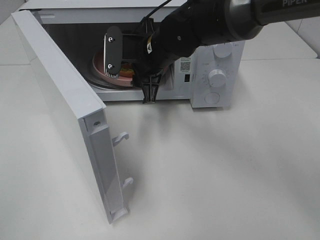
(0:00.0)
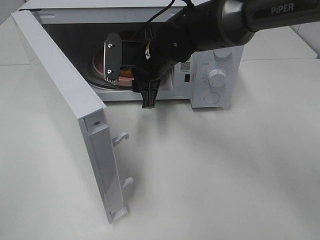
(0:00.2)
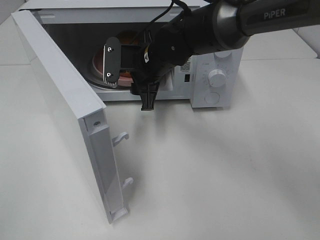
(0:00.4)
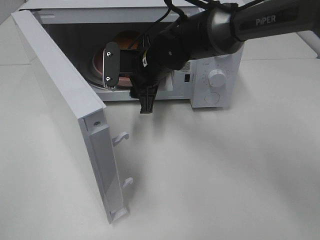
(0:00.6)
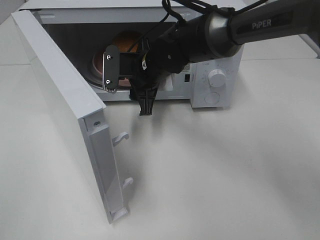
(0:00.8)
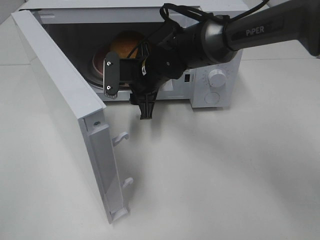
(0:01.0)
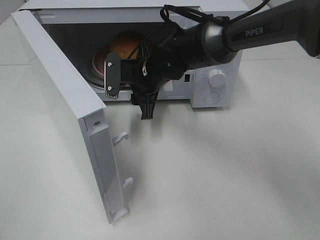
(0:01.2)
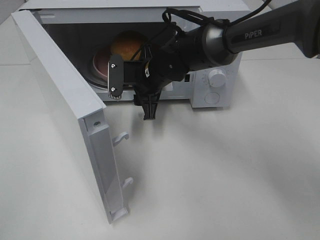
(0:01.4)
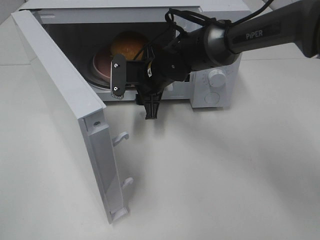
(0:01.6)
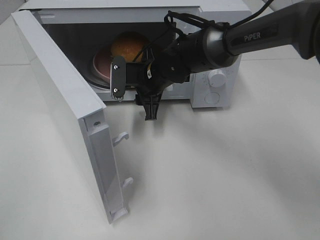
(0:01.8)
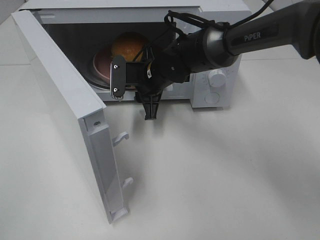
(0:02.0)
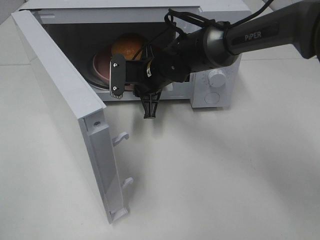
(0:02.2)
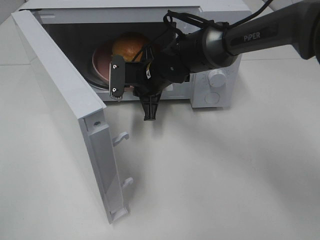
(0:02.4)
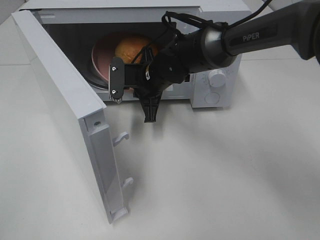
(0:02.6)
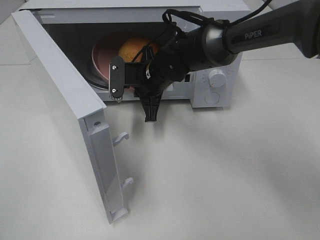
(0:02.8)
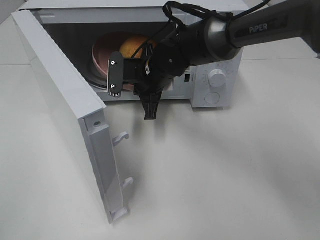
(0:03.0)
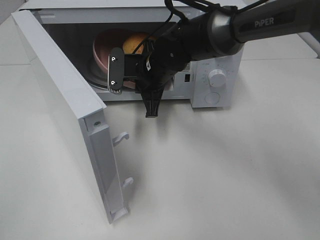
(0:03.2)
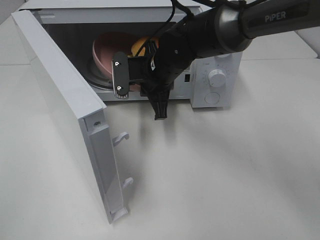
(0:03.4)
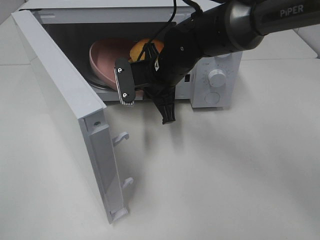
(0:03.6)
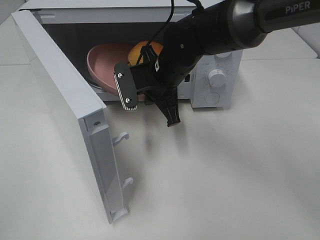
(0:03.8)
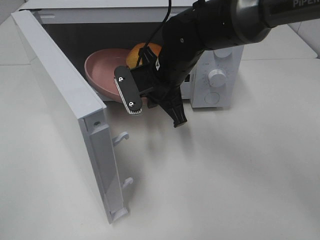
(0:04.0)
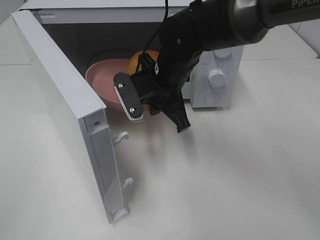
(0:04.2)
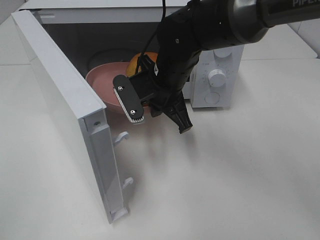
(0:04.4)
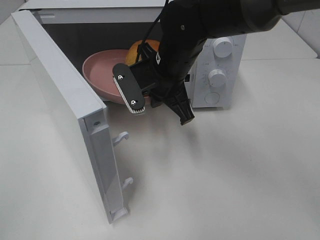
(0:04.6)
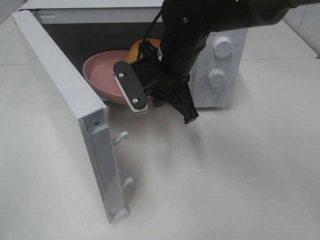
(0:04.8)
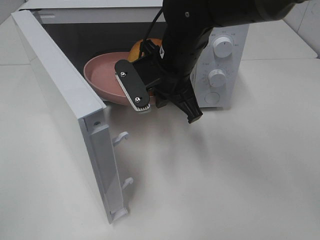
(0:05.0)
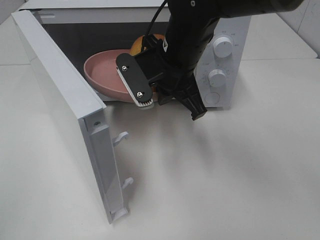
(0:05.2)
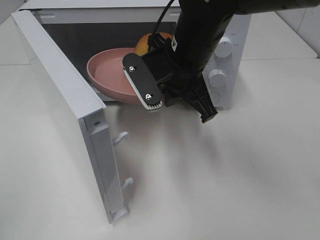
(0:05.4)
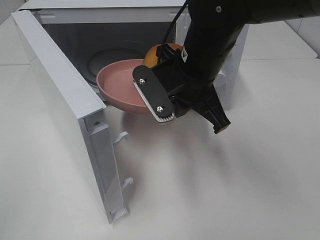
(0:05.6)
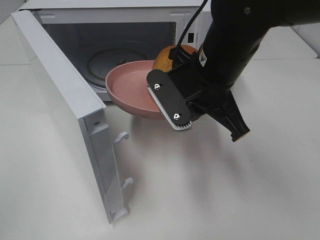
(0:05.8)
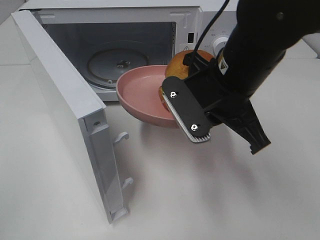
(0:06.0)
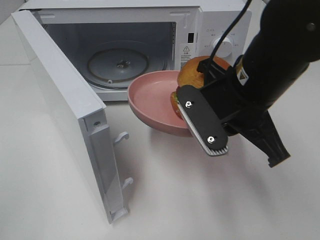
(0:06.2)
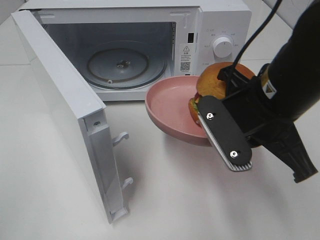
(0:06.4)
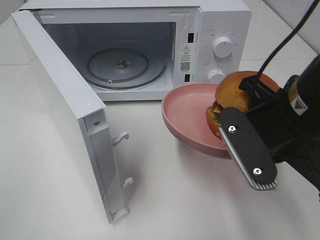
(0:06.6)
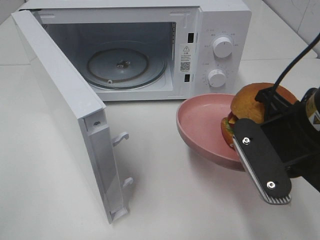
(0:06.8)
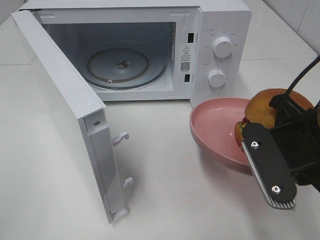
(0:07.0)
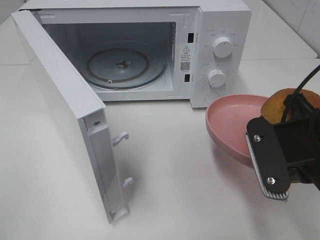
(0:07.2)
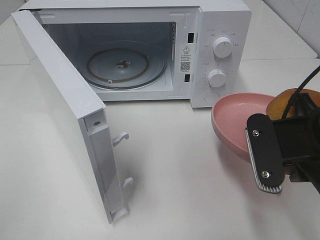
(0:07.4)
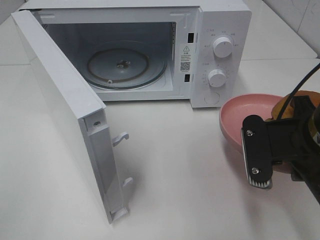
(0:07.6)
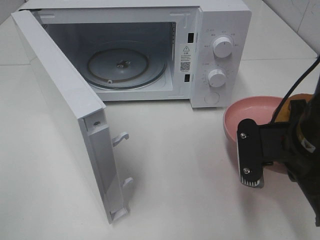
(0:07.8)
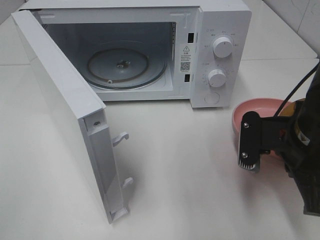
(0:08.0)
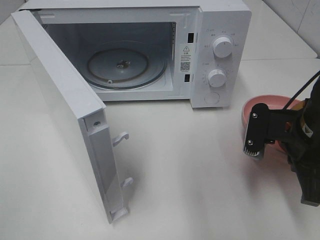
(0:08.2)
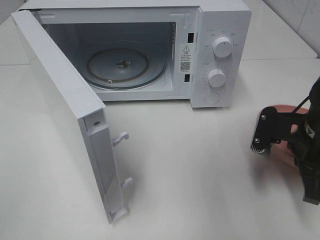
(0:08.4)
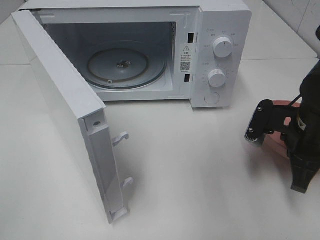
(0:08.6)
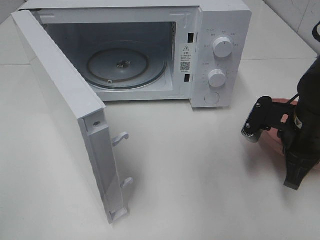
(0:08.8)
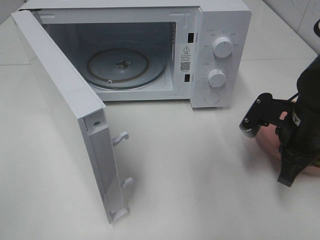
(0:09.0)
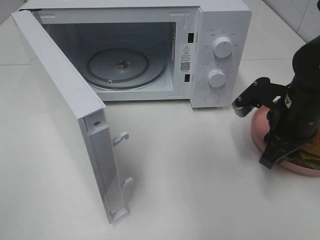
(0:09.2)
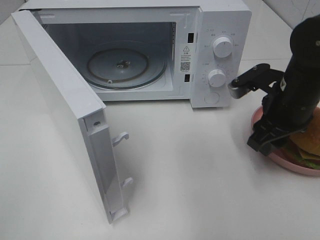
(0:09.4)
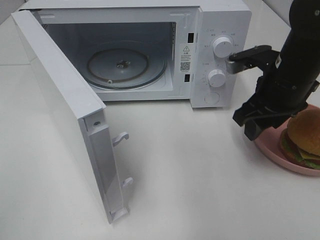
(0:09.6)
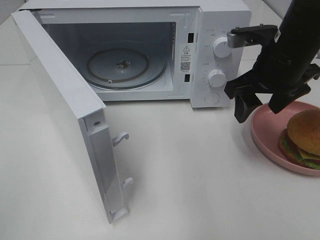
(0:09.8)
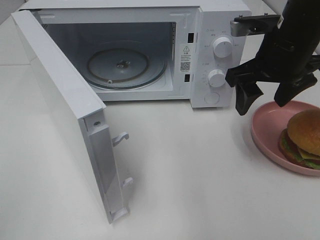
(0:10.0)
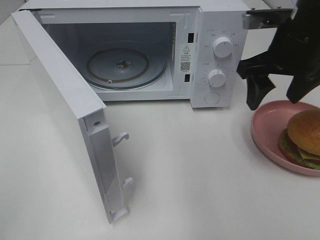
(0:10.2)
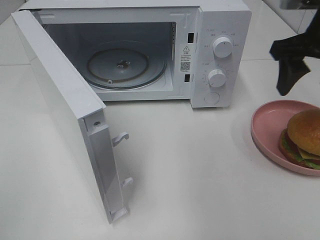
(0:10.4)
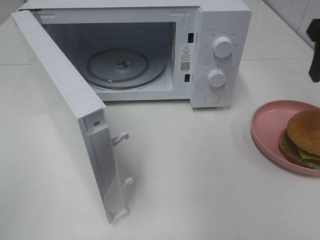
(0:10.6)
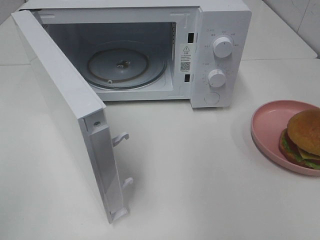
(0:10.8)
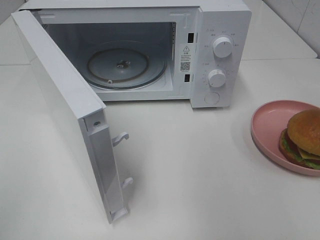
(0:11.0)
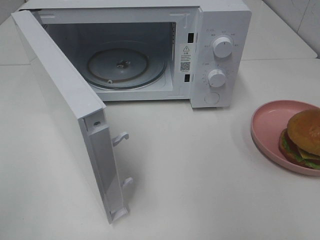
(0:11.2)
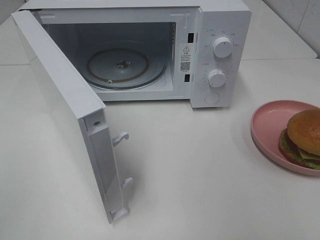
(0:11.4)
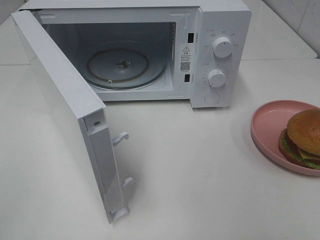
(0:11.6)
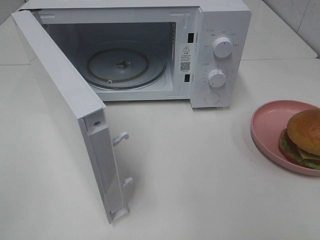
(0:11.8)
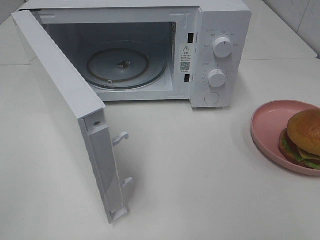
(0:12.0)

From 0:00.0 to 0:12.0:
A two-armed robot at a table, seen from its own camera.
Task of the whole recording: Heat the burger.
Step, from 0:00.0 to 0:02.2: Right hand: grab the plate with the hamburger.
Step, from 0:02.4 to 0:09.0: Right hand: place the plate on the table.
From 0:00.0 to 0:01.6: The right gripper shifts some 5 cm downward.
From 0:01.6 to 0:03.0: The right gripper closes up.
From 0:03.0 to 0:04.4: The right gripper heads backward, covering some 5 cm.
From 0:04.4 to 0:06.0: The right gripper goes approximately 15 cm backward, to the right and upward.
From 0:06.0 to 0:07.6: The right gripper moves to the right and backward, some 10 cm.
From 0:07.6 to 0:09.0: The right gripper moves forward and downward, roughly 10 cm.
From 0:09.0 to 0:10.4: The right gripper heads upward, covering some 15 cm, and opens its fingers.
From 0:10.4 to 0:12.0: The right gripper moves backward, roughly 30 cm.

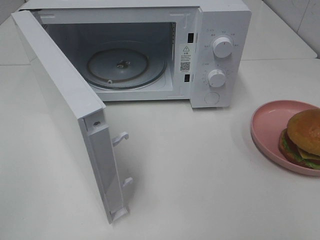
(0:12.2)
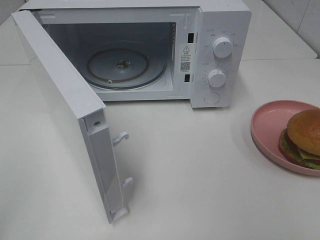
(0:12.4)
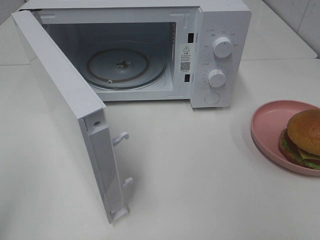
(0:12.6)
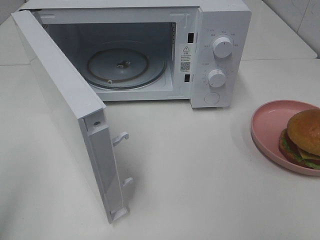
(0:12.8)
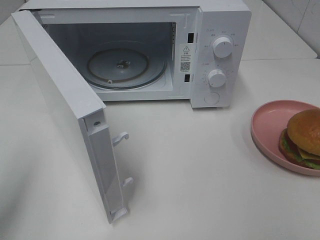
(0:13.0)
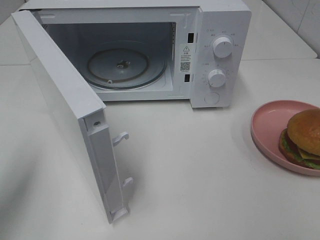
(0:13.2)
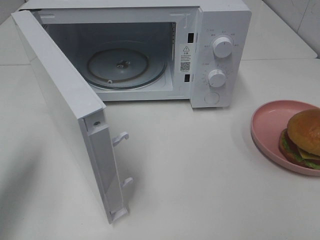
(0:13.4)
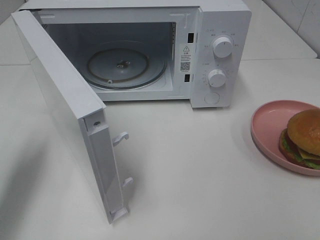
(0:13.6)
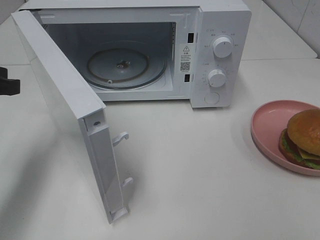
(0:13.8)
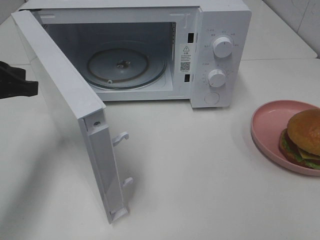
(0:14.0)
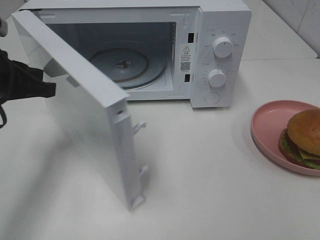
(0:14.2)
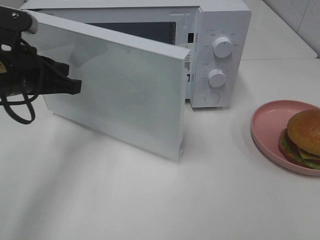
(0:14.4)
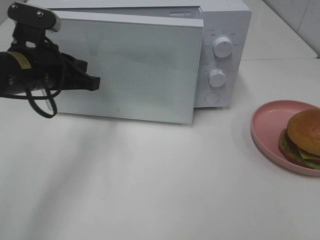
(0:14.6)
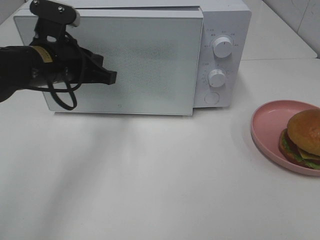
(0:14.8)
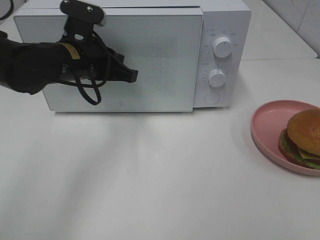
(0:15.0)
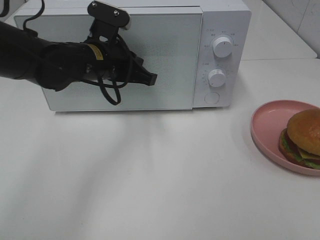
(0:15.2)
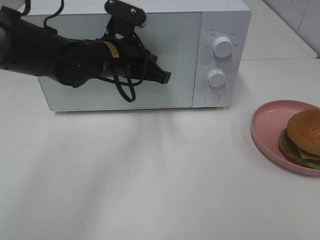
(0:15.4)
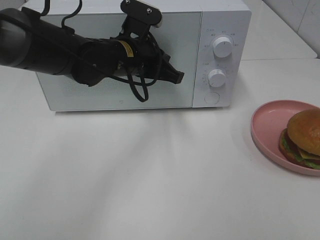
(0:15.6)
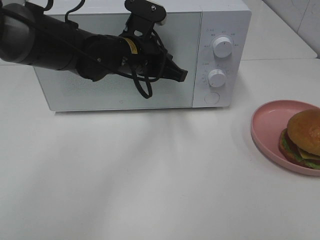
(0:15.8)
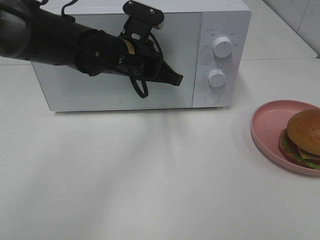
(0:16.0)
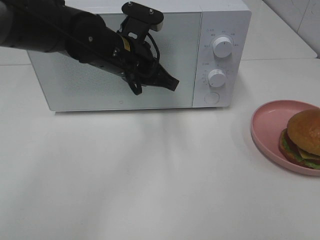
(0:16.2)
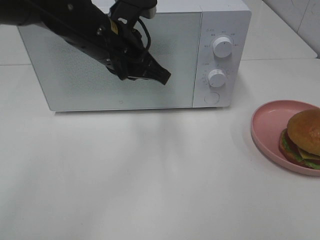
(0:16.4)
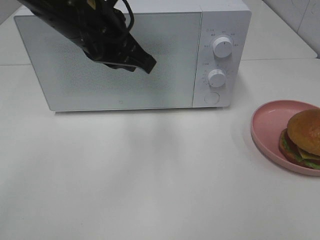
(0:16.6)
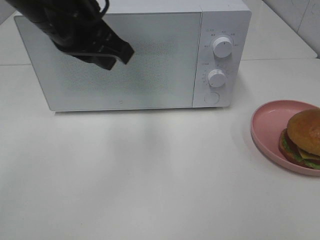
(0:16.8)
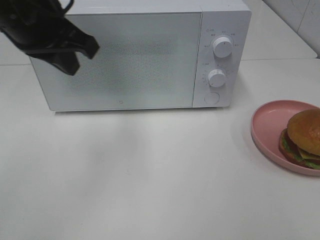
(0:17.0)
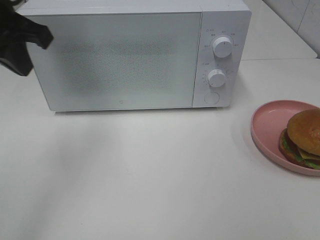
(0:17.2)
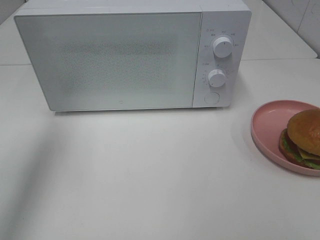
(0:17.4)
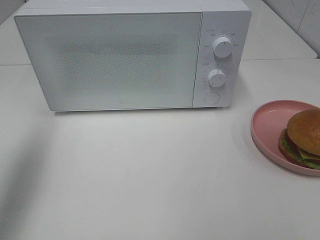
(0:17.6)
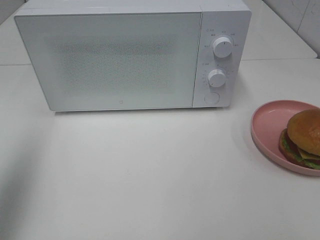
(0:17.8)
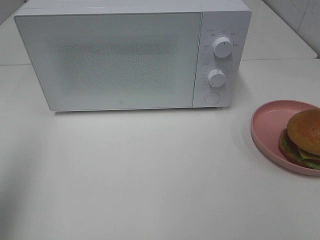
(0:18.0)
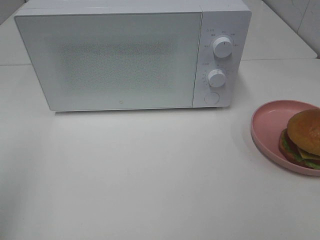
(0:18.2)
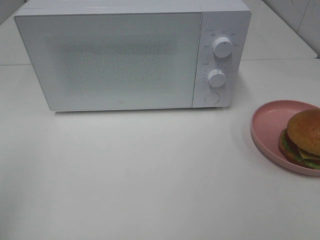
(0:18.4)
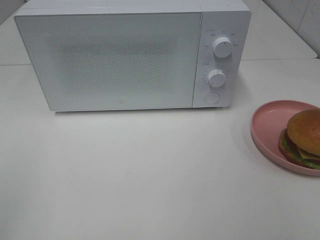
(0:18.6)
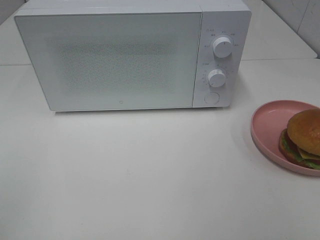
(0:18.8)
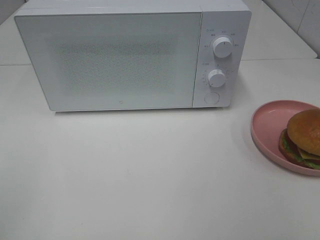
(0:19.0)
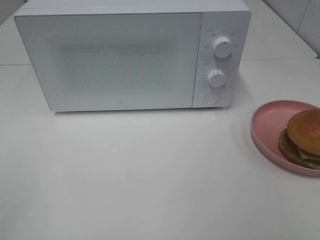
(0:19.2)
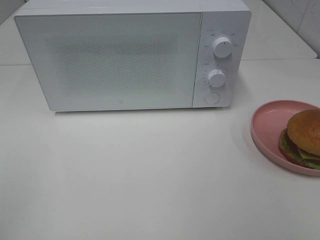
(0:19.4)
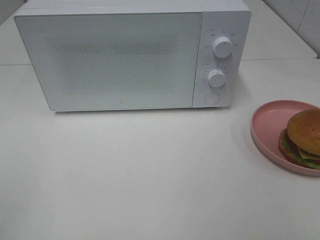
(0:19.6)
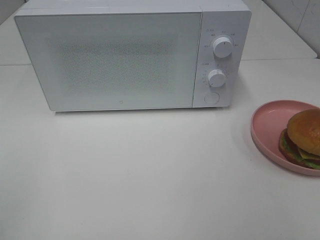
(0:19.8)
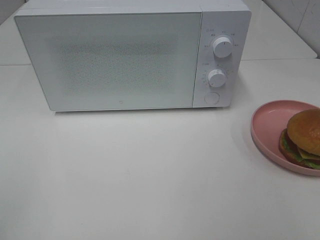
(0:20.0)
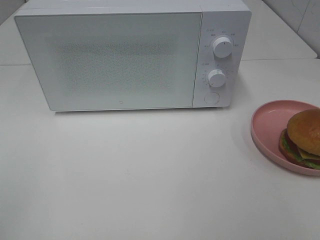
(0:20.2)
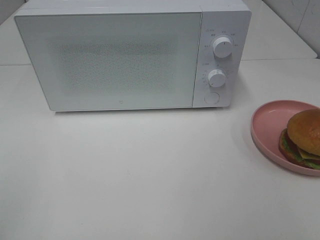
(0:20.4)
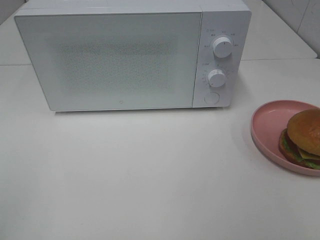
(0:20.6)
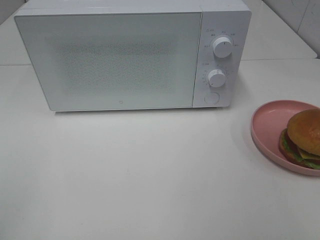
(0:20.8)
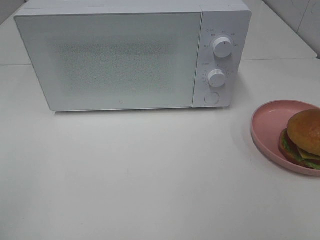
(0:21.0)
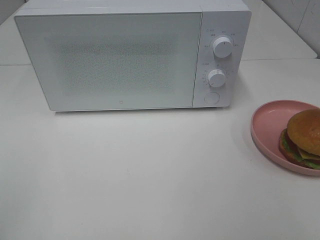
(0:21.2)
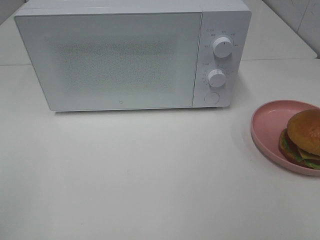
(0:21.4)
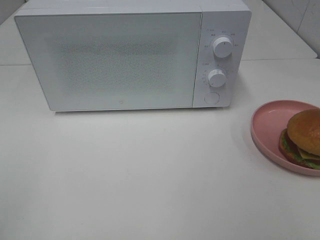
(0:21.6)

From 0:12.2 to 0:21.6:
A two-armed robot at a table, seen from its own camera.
Task of the whole recording: Heat the burger.
Step, from 0:12.2 to 0:15.8: Left hand: close the microwave door.
From 0:12.2 to 0:13.8: The left gripper heads forward, covering some 25 cm.
From 0:13.8 to 0:15.4: The left gripper heads to the right and forward, covering approximately 25 cm.
From 0:15.4 to 0:17.0: The left gripper goes about 15 cm upward, to the left and backward.
From 0:17.0 to 0:18.4: The left gripper moves backward and to the left, some 30 cm.
From 0:20.0 to 0:21.6: Both grippers stay about where they are.
